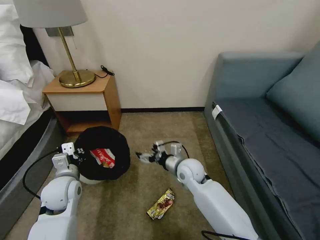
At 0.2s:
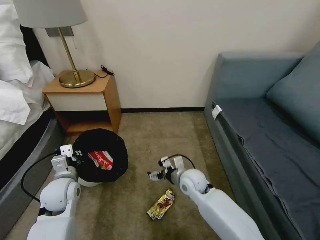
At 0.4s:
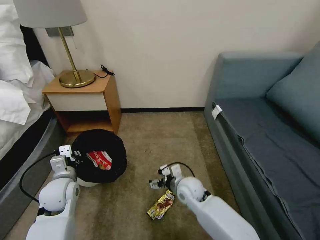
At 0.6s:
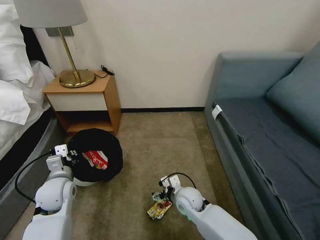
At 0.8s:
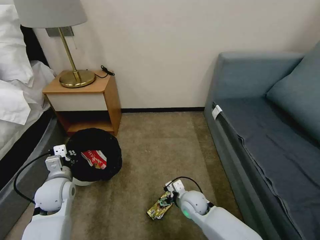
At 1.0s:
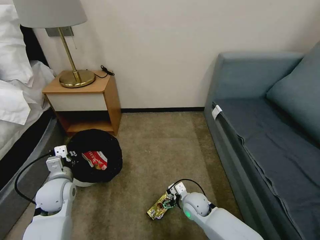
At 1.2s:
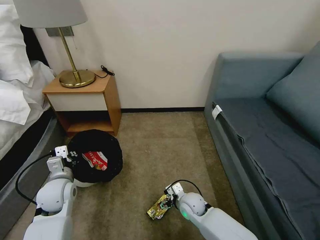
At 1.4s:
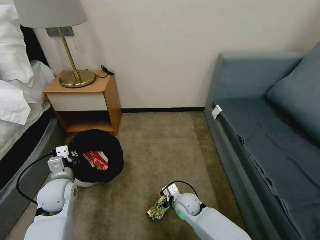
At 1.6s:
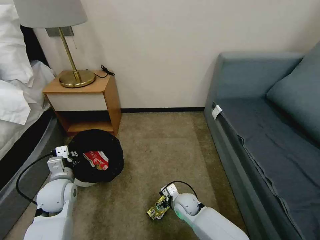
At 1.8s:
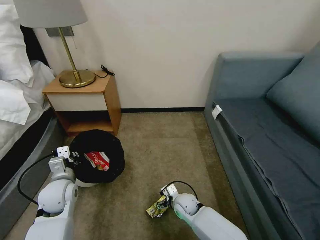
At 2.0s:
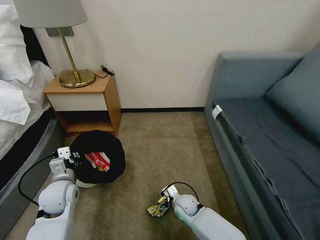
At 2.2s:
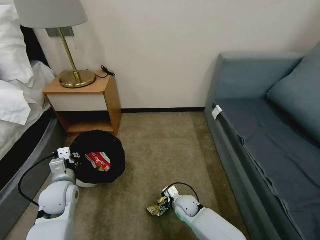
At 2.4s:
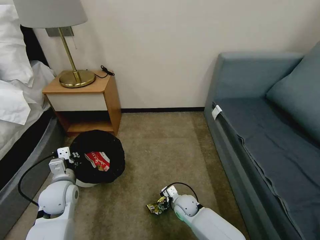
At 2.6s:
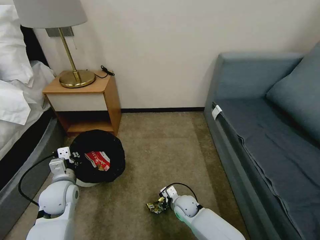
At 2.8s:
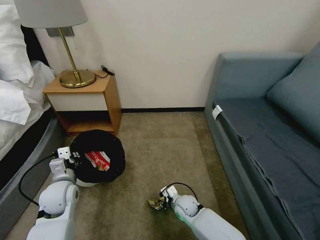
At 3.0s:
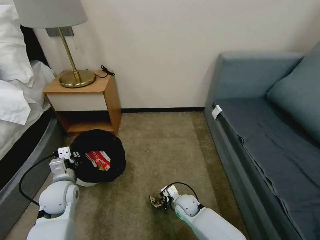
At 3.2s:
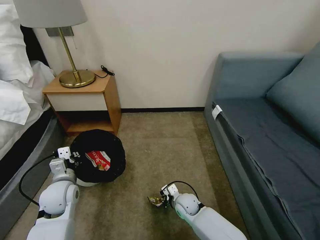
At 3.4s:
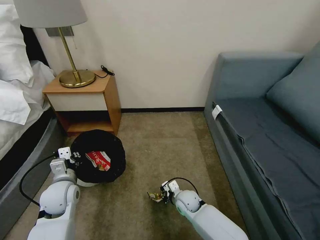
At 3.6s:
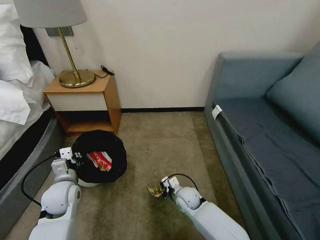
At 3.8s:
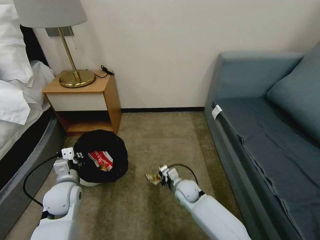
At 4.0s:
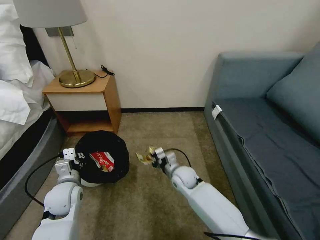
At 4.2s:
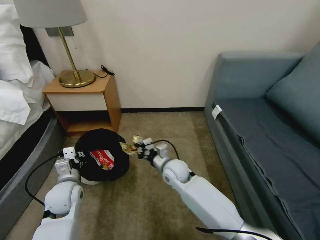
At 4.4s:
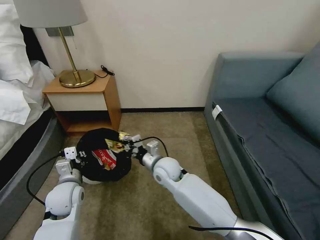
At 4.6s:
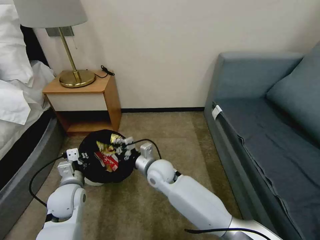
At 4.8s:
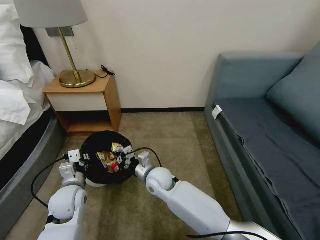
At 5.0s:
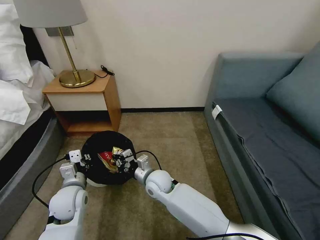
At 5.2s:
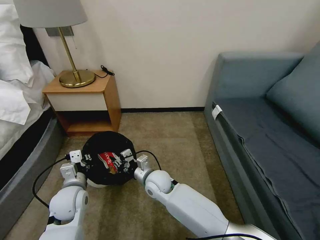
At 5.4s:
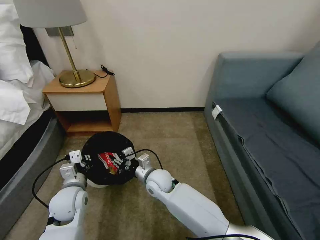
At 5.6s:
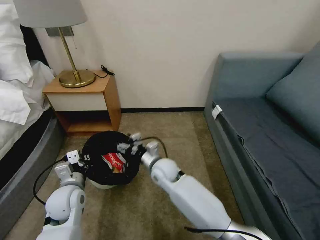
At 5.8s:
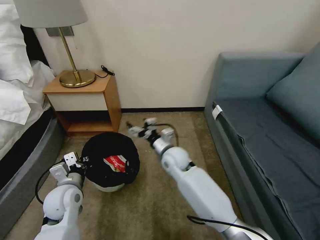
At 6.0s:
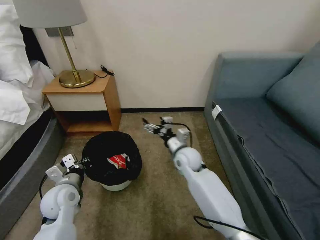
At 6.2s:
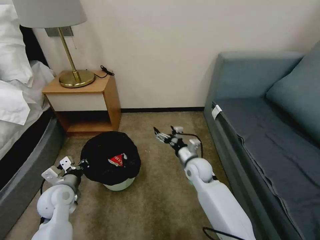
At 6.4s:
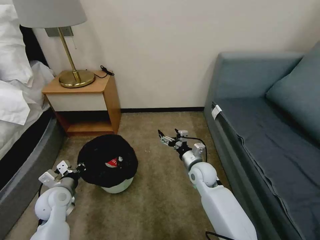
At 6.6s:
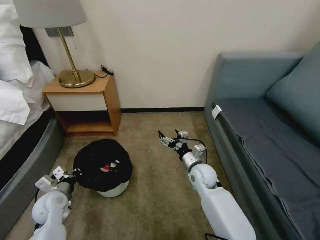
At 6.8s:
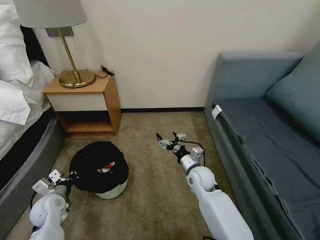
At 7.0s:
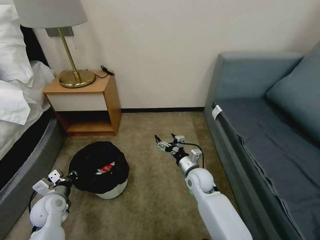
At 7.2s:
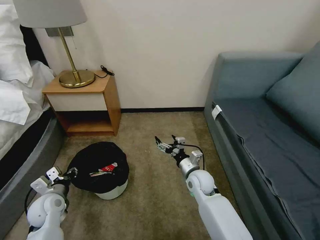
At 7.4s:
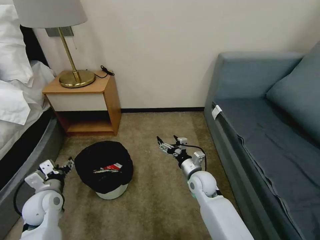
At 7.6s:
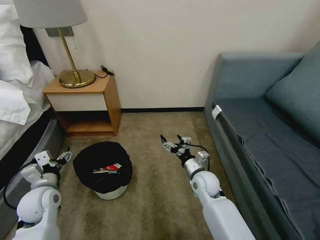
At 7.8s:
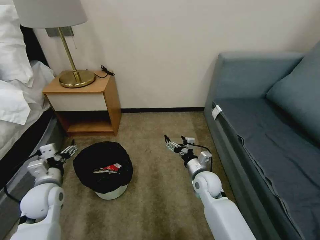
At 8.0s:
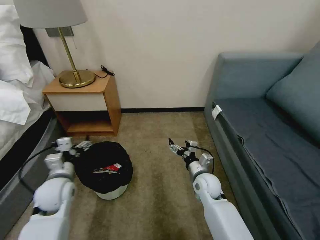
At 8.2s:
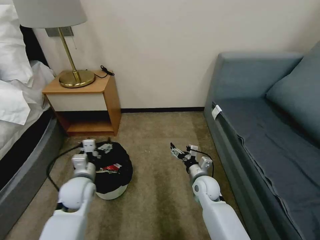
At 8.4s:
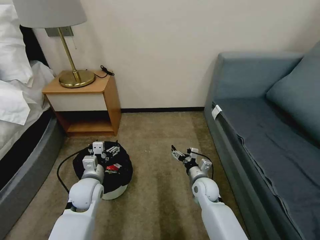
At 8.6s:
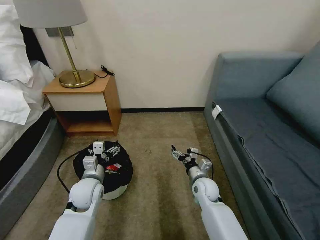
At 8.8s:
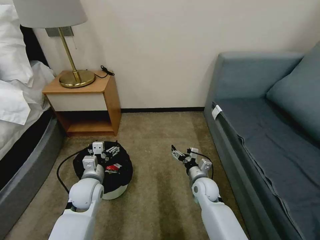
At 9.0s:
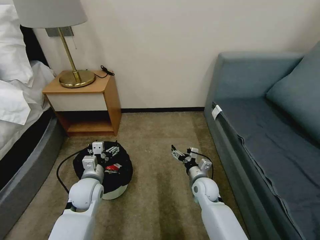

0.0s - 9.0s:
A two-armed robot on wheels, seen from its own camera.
Task of the whole recording: Pick up the trash bin, then pick up the garbage on the floor and place it into the trash bin.
0.0s - 1.6s: The right gripper heads downward and backward, covering approximately 15 cm.
1.6s - 3.0s: The right gripper closes.
3.0s - 4.4s: The right gripper shifts roughly 20 cm upward and to the left.
4.4s - 6.0s: The right gripper moves to the right, some 5 cm, and opens.
6.0s - 7.6s: The right gripper shifts about 10 cm backward, to the right and downward, while the left gripper shifts some 5 cm to the left, travels downward and back again, some 5 cm each way, and opens up.
7.6s - 9.0s: The right gripper moves downward, about 5 cm. The left gripper moves to the right, approximately 10 cm.

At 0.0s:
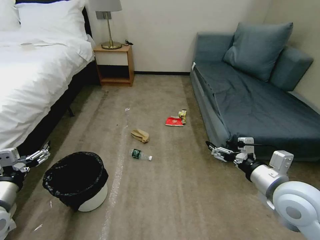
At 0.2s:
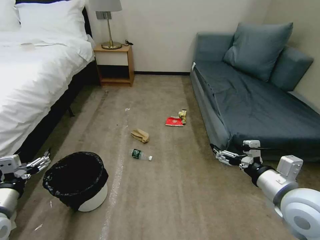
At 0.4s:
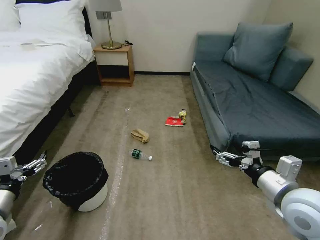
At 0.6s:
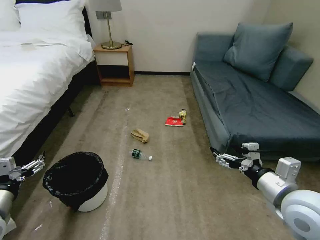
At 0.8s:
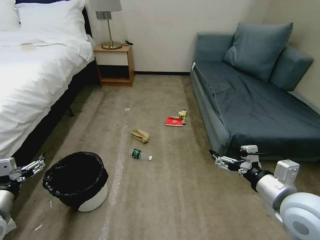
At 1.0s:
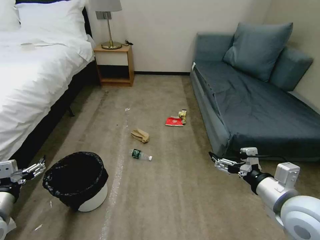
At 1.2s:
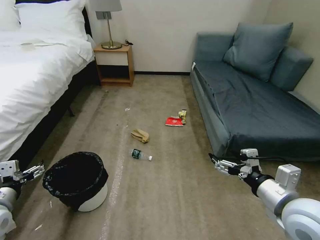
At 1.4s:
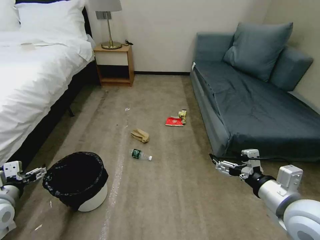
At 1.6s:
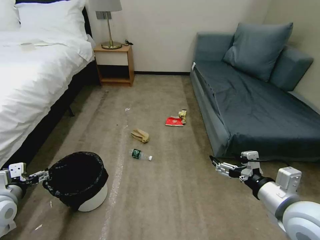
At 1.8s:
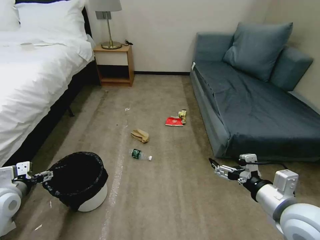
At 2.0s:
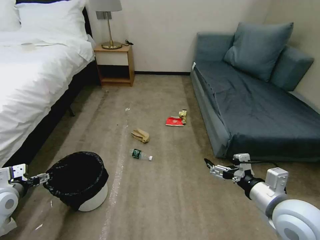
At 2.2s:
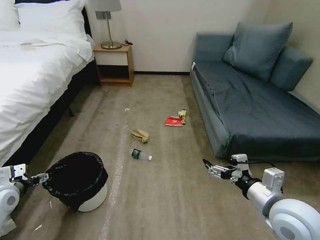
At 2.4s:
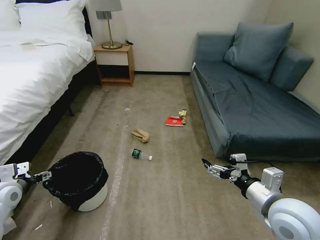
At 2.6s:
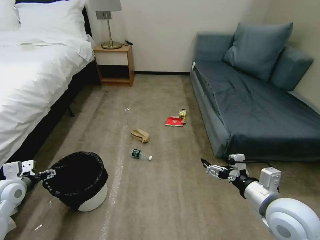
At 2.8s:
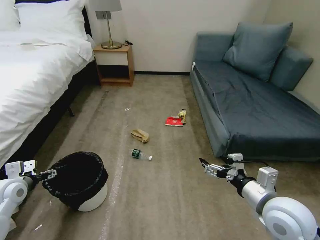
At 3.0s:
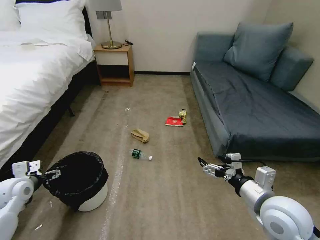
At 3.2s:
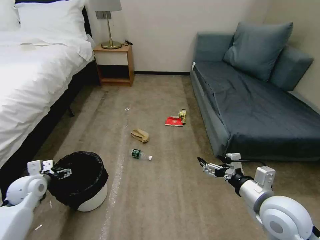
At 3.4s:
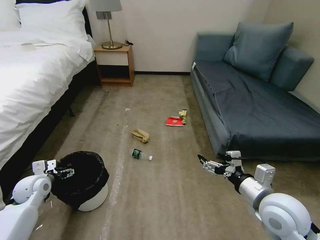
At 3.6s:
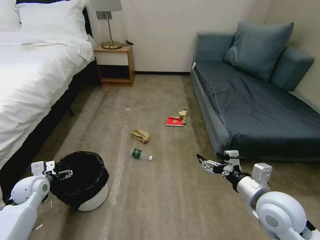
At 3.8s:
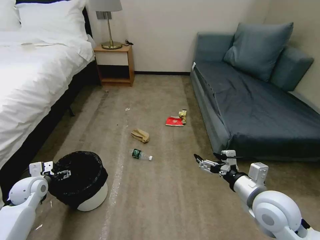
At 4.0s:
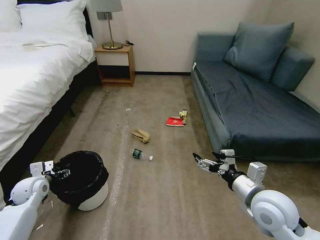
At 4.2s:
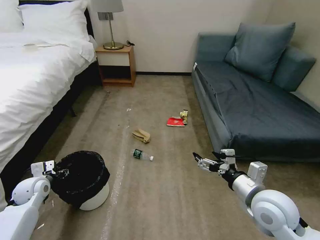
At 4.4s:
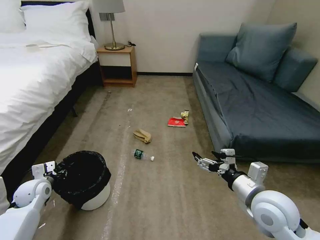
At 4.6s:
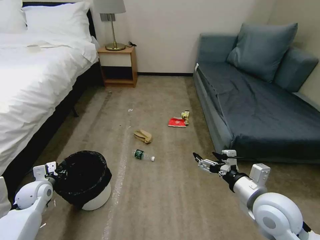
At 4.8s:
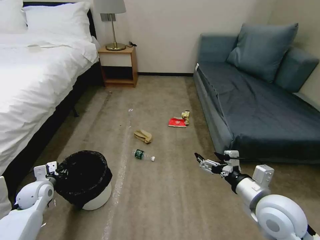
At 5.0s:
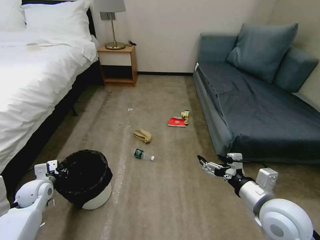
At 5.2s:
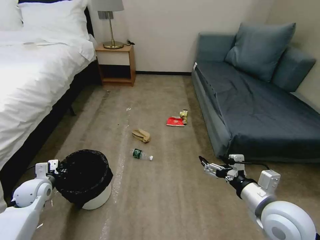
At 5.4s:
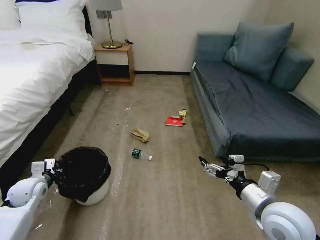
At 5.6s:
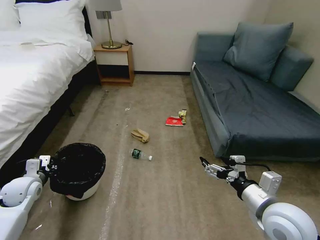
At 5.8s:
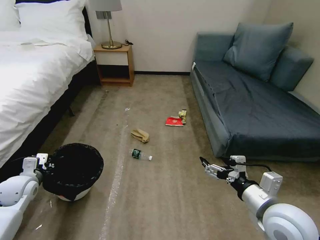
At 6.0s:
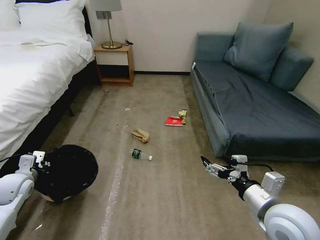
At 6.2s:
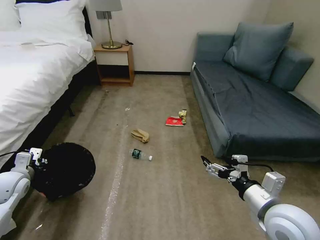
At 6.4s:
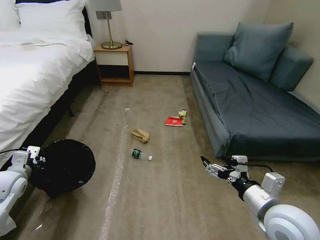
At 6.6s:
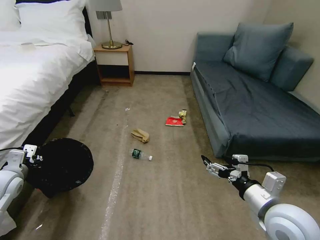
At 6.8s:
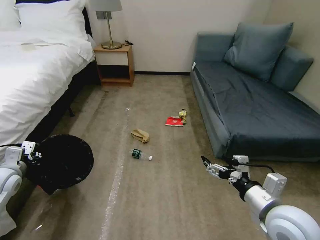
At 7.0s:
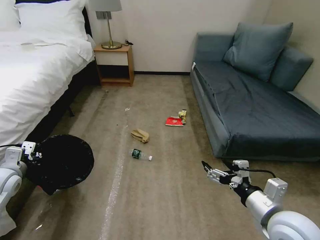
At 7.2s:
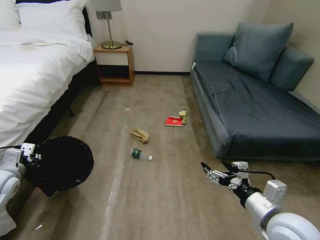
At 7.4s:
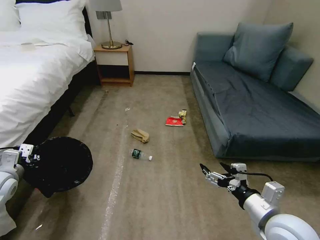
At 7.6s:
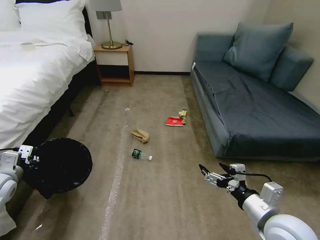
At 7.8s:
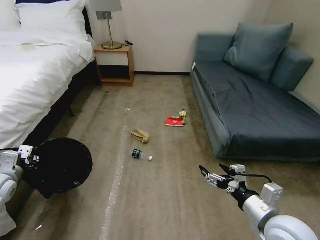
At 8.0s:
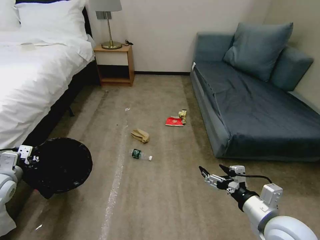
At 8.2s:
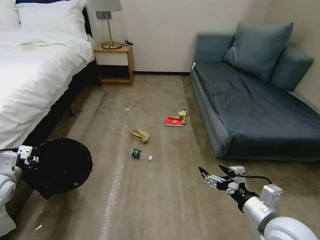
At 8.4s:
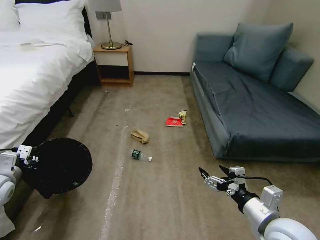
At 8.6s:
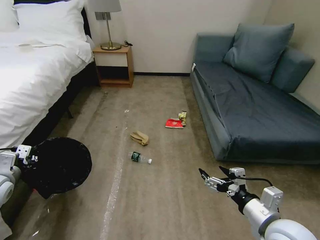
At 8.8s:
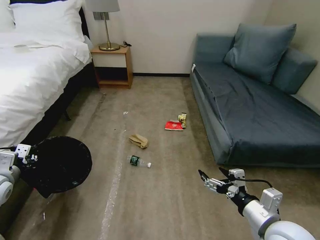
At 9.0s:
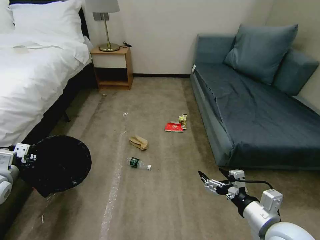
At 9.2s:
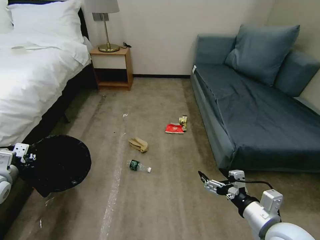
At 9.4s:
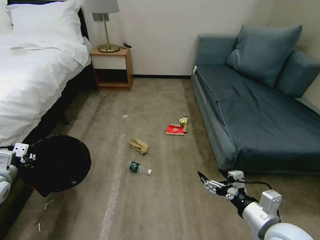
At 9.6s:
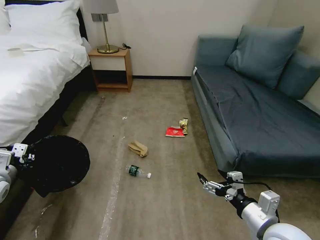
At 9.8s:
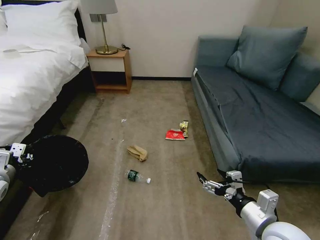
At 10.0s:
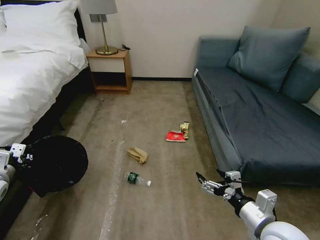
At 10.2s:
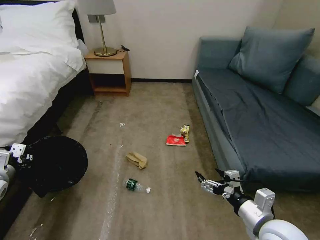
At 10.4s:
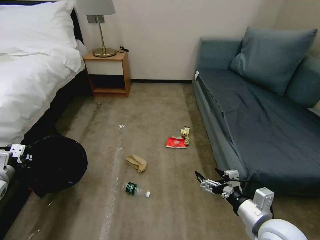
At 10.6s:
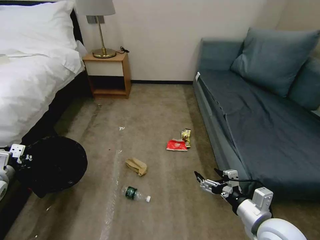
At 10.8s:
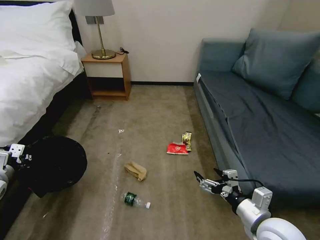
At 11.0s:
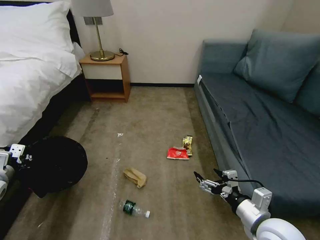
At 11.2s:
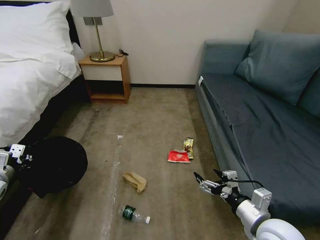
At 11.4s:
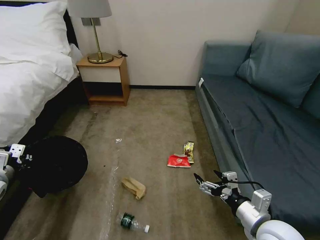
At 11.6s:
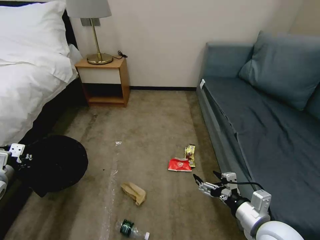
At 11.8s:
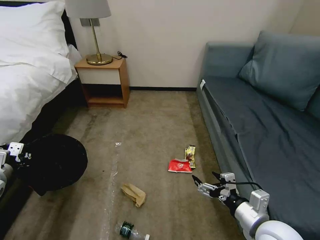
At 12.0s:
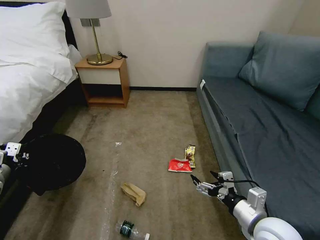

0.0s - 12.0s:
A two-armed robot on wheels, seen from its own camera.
Task of the whole recording: Pick up the trash bin, then pick up the garbage on the floor and place it into the trash bin.
1.6s - 3.0s: The left gripper heads forward, covering approximately 5 cm.
3.0s - 4.4s: The left gripper travels downward by some 5 cm, and closes up.
4.4s - 6.0s: The left gripper travels upward by approximately 5 cm.
6.0s - 7.6s: The left gripper shifts by about 5 cm.
7.6s - 9.0s: There are only small adjustments of the grippers.

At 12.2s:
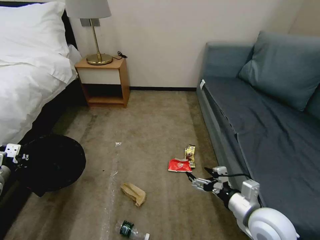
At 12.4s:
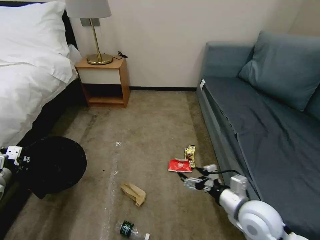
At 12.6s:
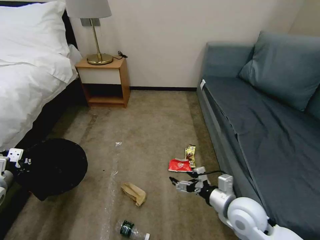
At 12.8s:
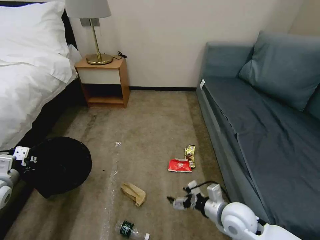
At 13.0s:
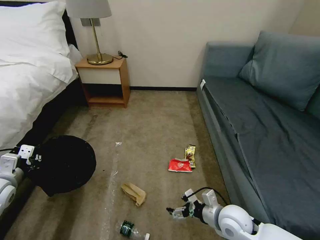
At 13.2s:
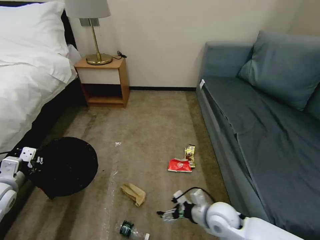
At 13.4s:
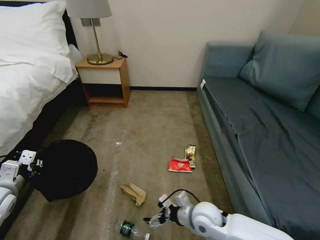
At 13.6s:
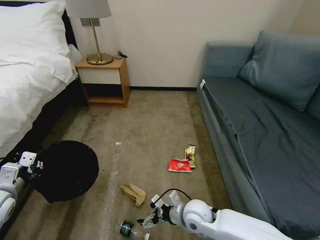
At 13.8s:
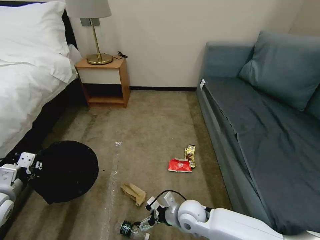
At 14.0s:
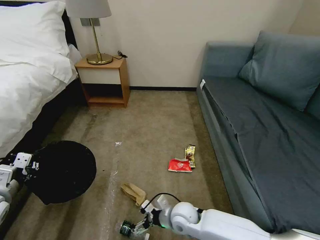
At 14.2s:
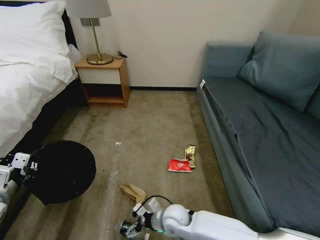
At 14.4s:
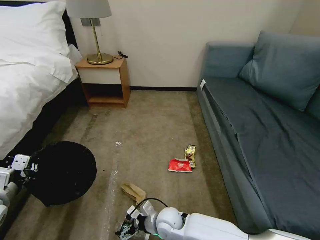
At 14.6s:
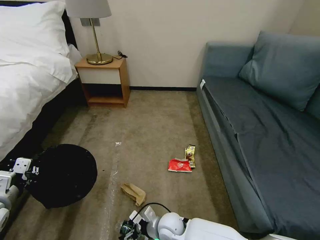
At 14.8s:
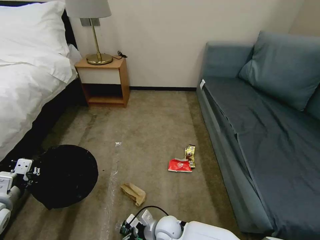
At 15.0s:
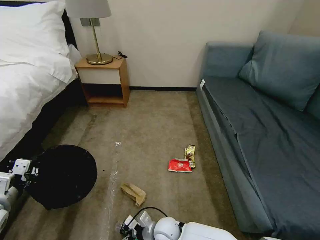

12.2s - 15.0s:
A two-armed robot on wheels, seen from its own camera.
Task of the whole recording: Pick up the trash bin, then pick up the garbage on the floor and place it into the trash bin.
12.2s - 13.6s: The left gripper heads to the right, covering approximately 5 cm. Meanwhile the right gripper heads to the left, downward and forward, covering roughly 20 cm.
13.6s - 15.0s: The right gripper goes roughly 15 cm to the left and downward.
